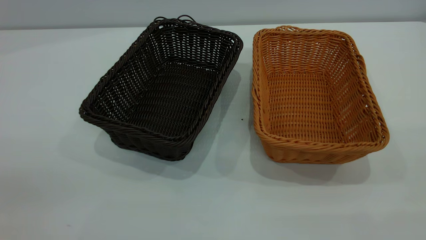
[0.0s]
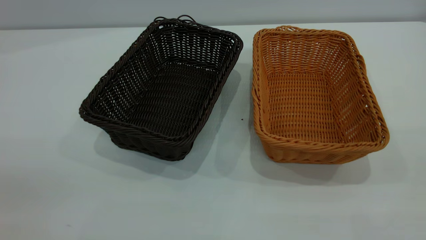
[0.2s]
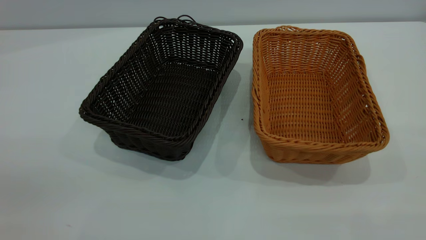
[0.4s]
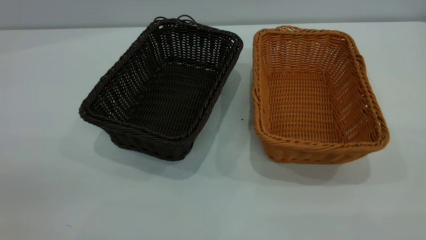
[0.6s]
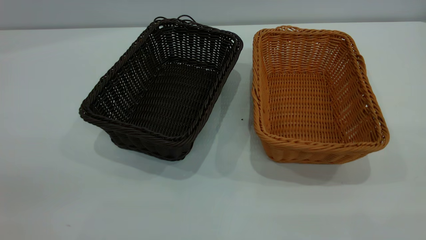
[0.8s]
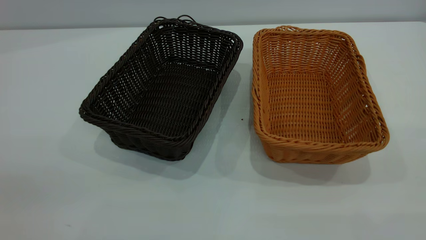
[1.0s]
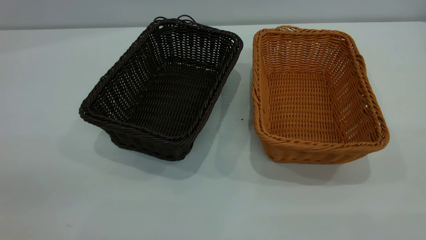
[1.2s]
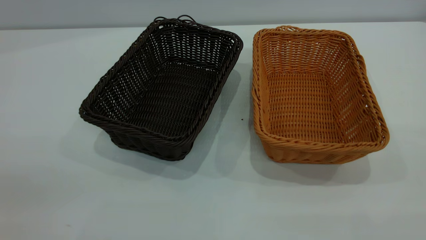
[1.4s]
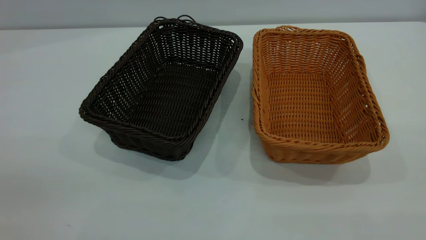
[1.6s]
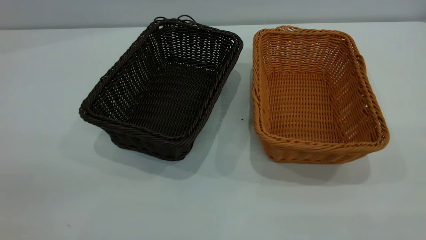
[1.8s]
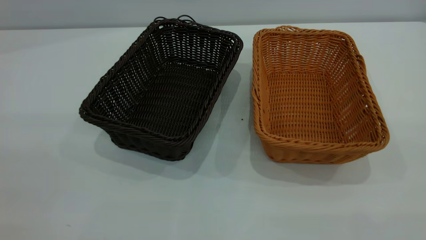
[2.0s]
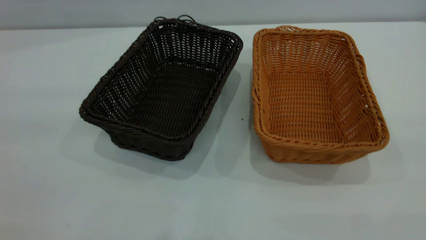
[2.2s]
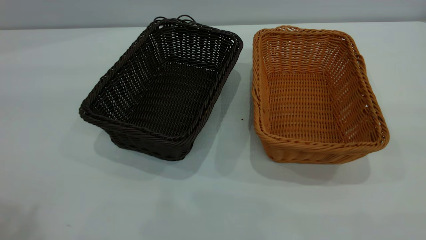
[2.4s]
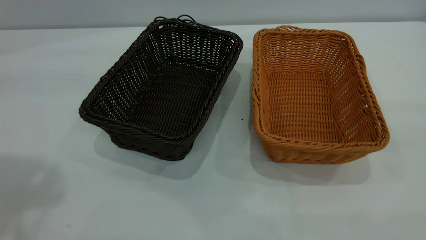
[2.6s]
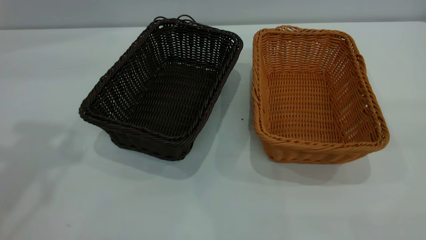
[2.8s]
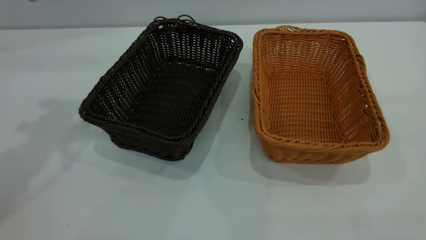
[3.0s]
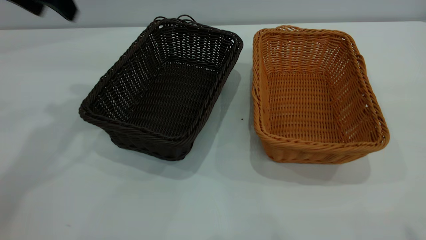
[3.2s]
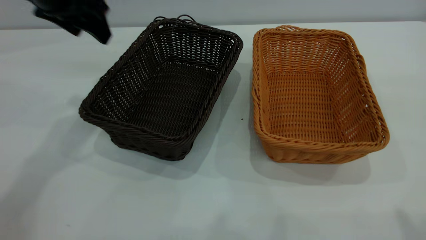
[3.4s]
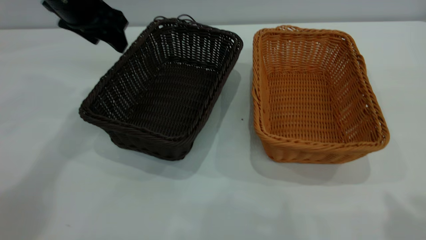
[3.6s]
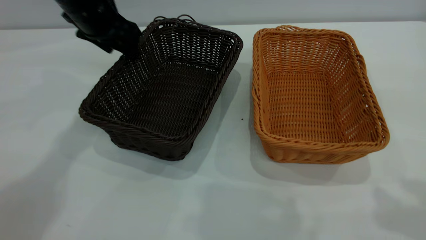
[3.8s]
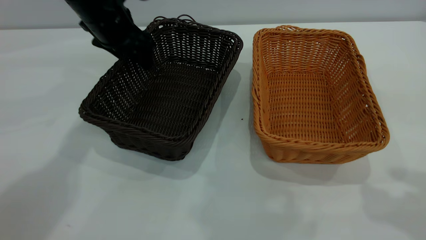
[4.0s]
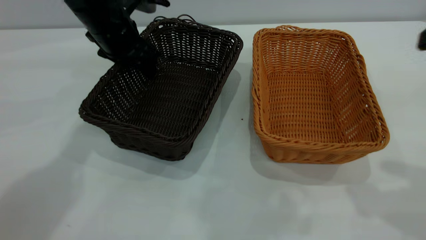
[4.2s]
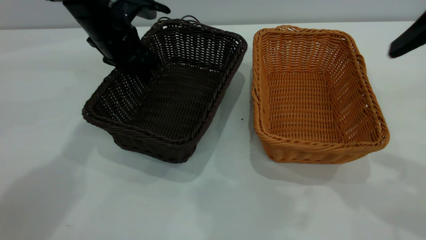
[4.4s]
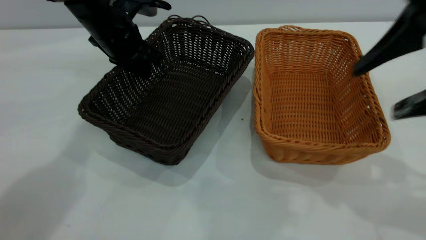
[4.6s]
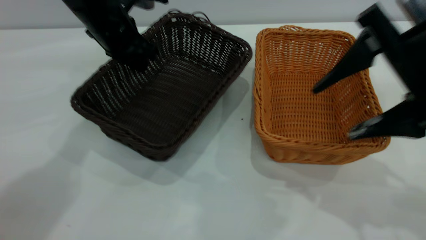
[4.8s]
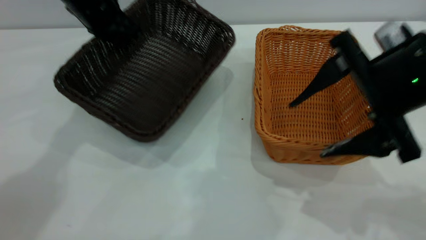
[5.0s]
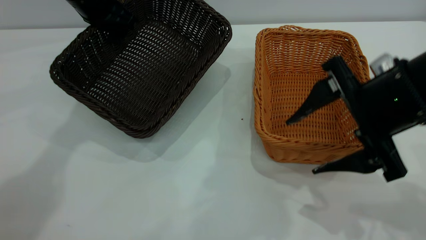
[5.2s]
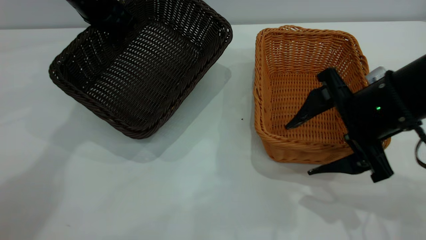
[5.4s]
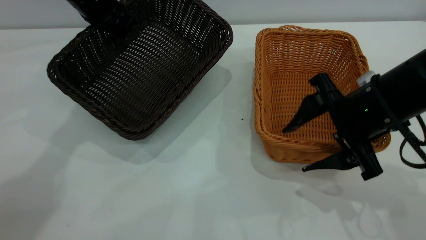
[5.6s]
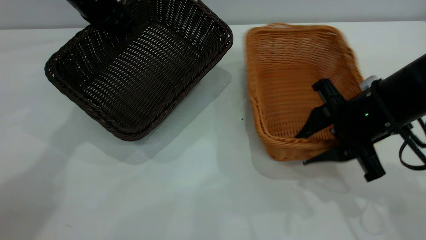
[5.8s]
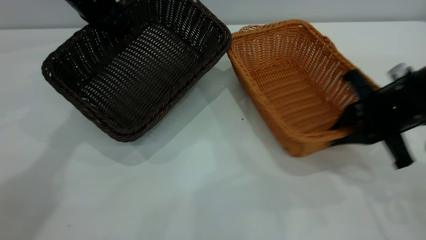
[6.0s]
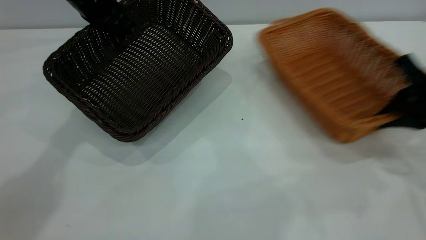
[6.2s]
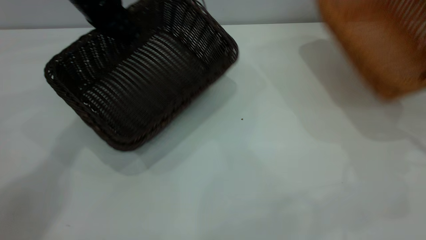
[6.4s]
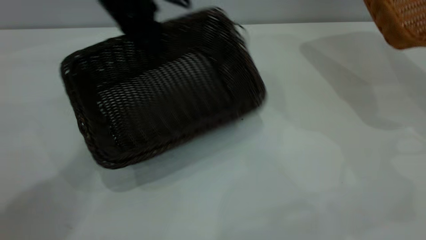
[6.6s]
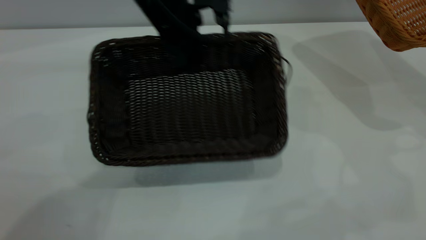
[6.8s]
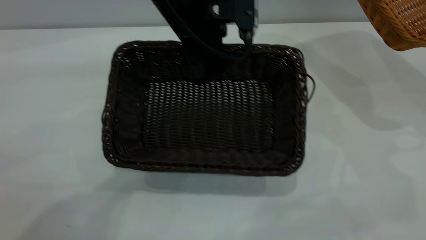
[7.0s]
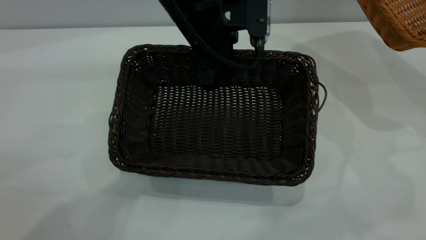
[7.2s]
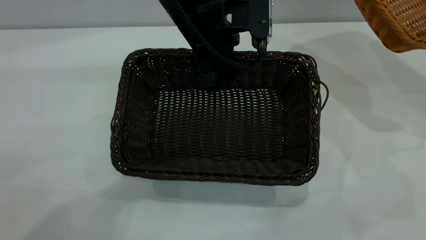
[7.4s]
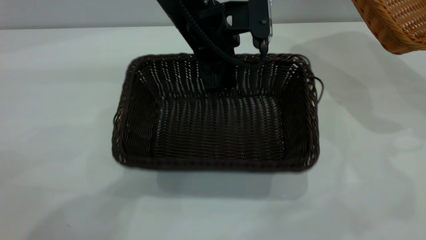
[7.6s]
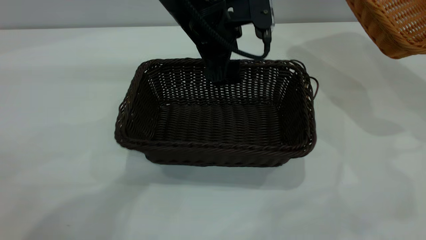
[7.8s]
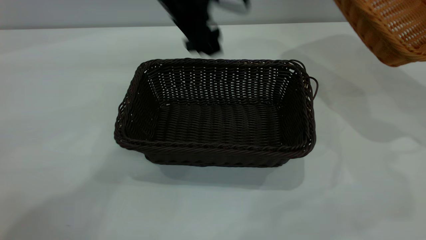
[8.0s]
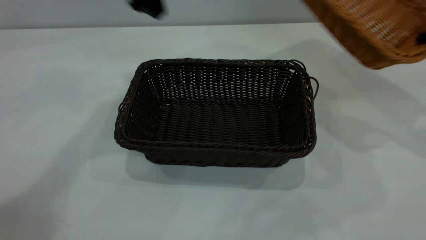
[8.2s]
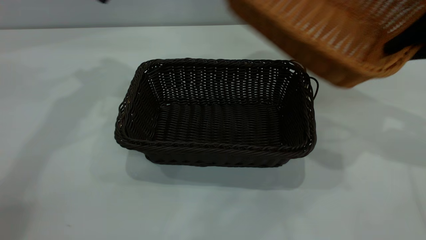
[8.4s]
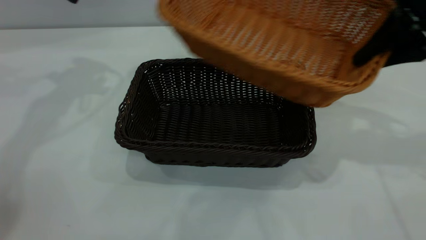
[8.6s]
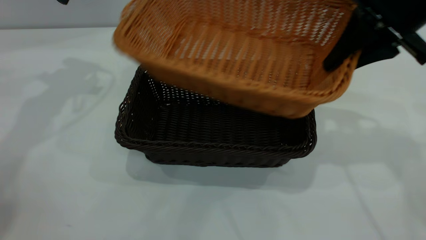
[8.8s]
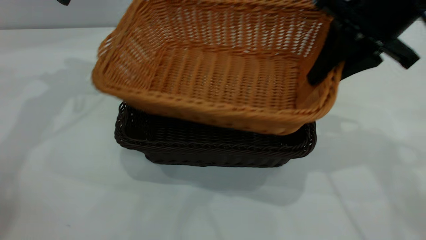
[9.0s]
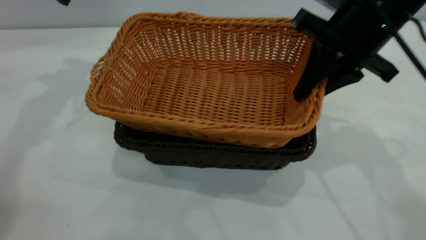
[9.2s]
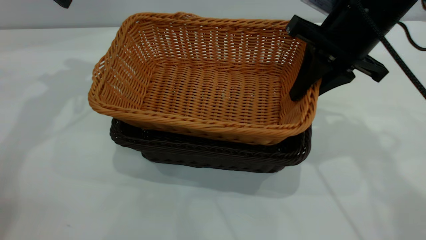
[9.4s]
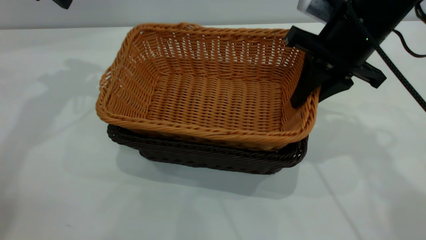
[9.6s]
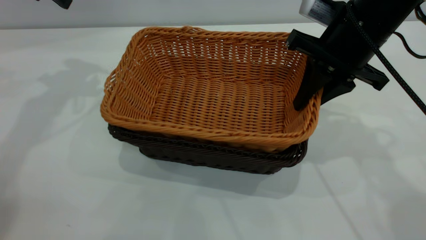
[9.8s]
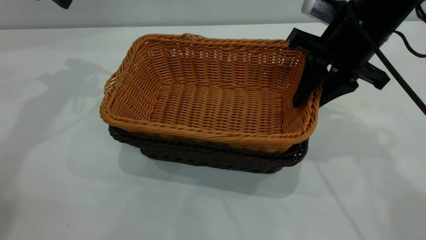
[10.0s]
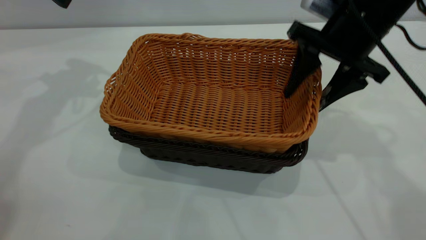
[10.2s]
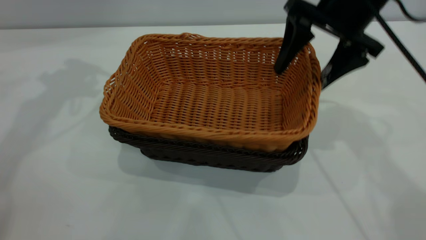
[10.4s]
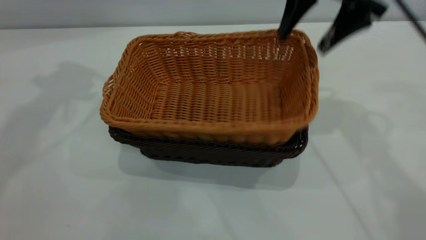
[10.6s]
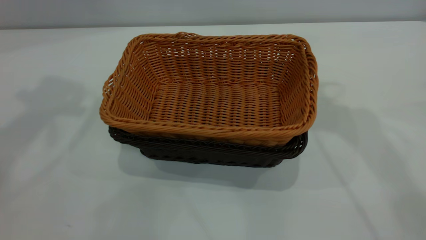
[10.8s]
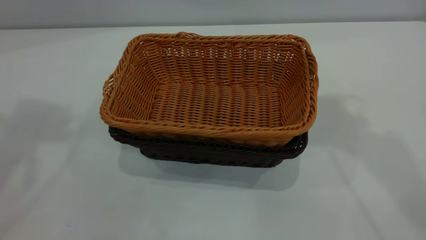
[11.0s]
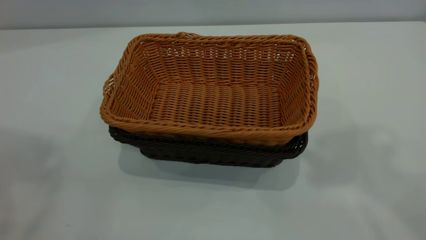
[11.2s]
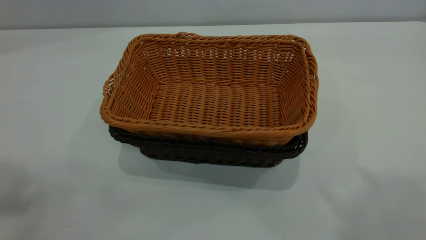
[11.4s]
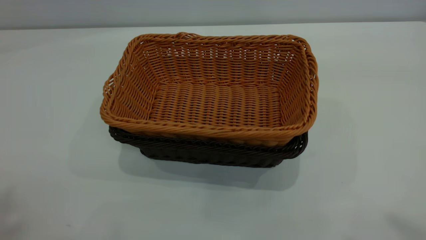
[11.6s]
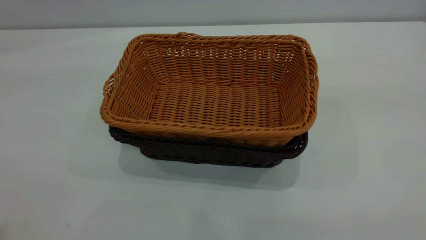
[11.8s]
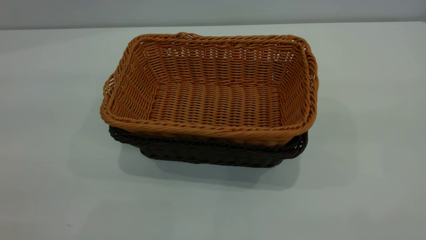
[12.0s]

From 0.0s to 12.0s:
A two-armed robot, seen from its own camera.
Task of the whole recording: the left gripper grasp the black basket and place it in the center of the table, the right gripper grasp the brown basket and place it inside the black one.
Step, from 0.0s to 6.6s: Pick up the light basket with the right gripper.
Step, from 6.8s to 8.0s: Move the dark basket to the center of view.
Step, from 8.2s to 10.6s: Place the light basket on the dark basket.
From 0.0s to 1.6s: Both grippers stay put.
From 3.0s to 4.4s: The left gripper moves downward, to the right and forward, approximately 25 cm, and closes up. The right gripper shifts about 20 cm forward and downward.
From 4.4s to 6.0s: The right gripper shifts approximately 20 cm downward and forward, and closes up, while the left gripper heads upward, covering about 5 cm.
From 6.0s to 7.6s: The right gripper heads to the right and upward, covering roughly 15 cm. The left gripper heads to the right and backward, covering approximately 20 cm, and opens its fingers.
From 7.6s to 9.0s: The grippers both shift to the left by about 25 cm.
From 9.0s to 10.4s: The right gripper shifts some 5 cm forward, and opens its fingers.
From 10.4s to 12.0s: The grippers both shift backward and upward by roughly 40 cm.
